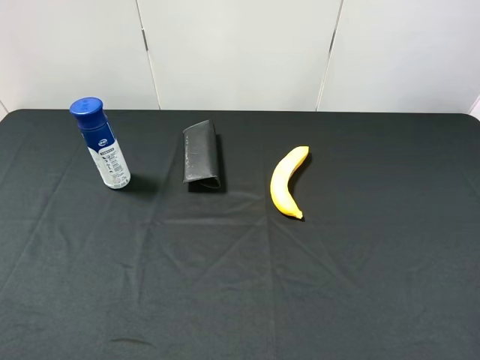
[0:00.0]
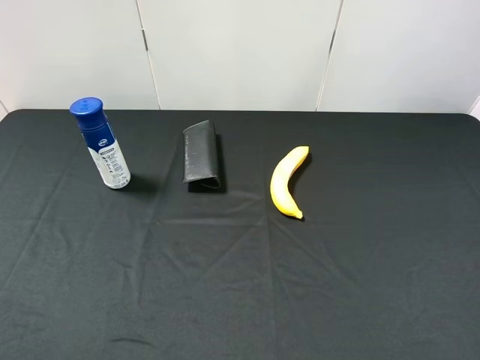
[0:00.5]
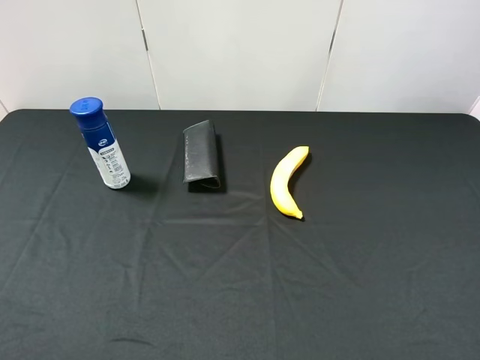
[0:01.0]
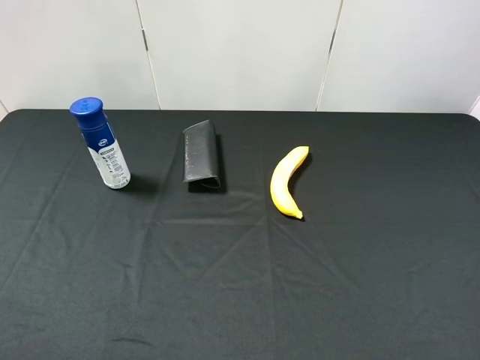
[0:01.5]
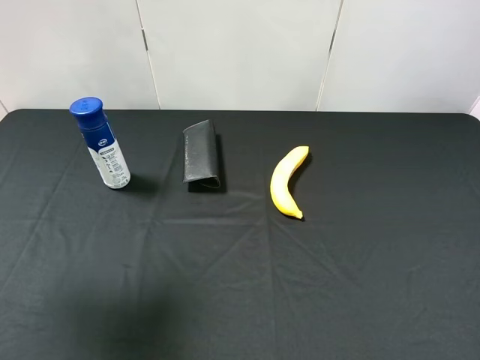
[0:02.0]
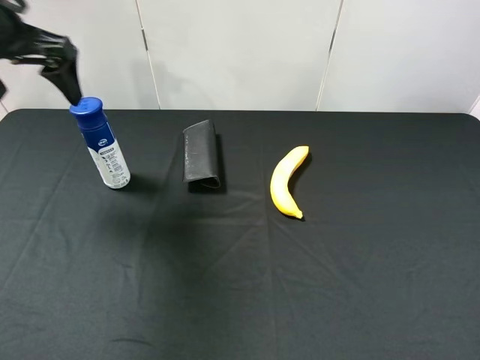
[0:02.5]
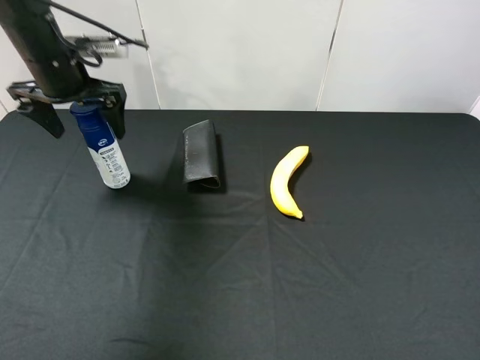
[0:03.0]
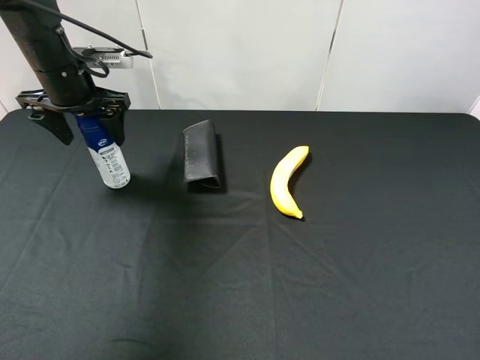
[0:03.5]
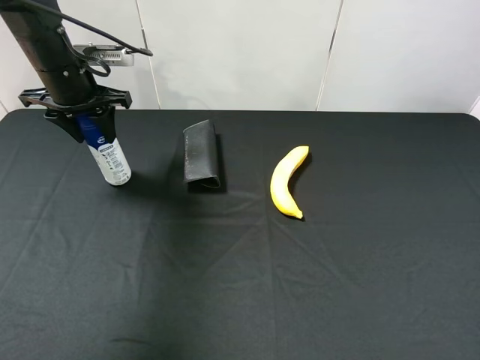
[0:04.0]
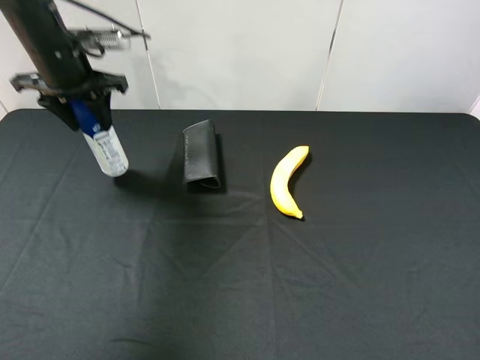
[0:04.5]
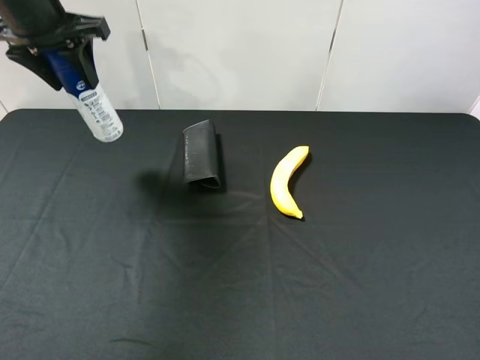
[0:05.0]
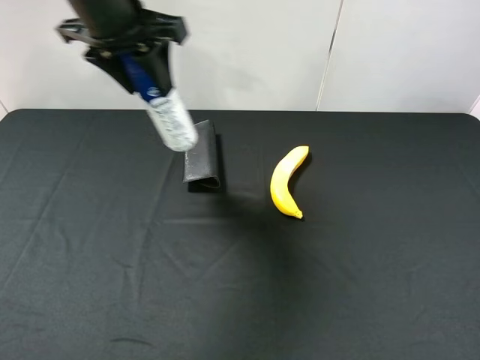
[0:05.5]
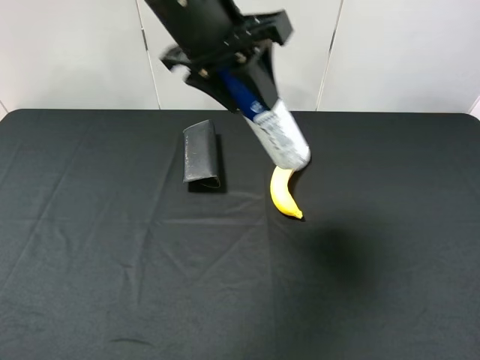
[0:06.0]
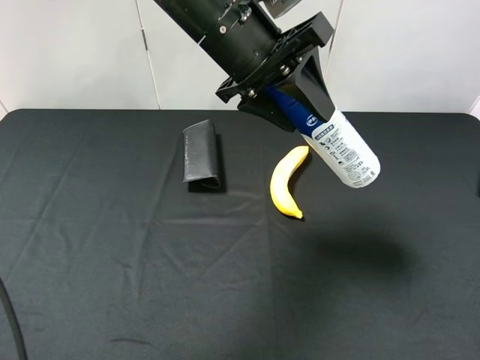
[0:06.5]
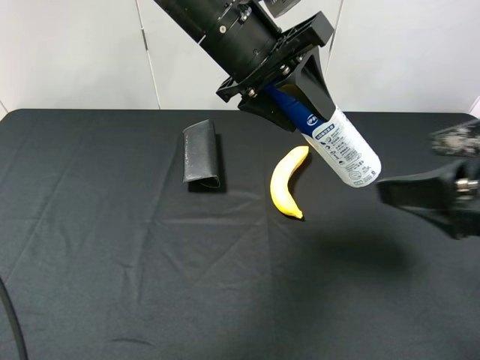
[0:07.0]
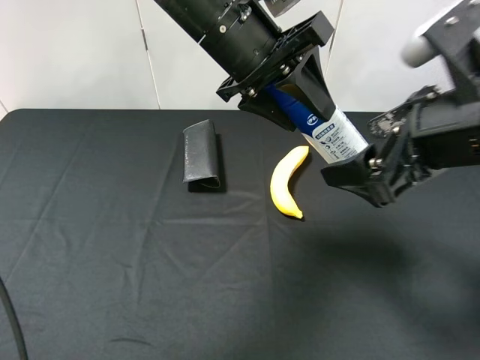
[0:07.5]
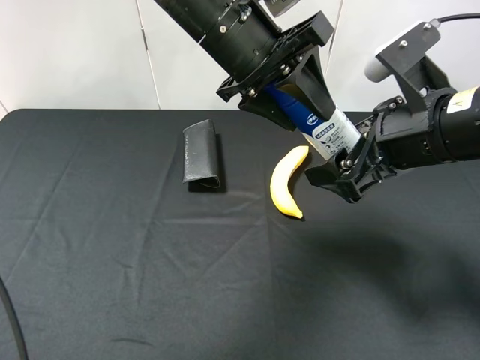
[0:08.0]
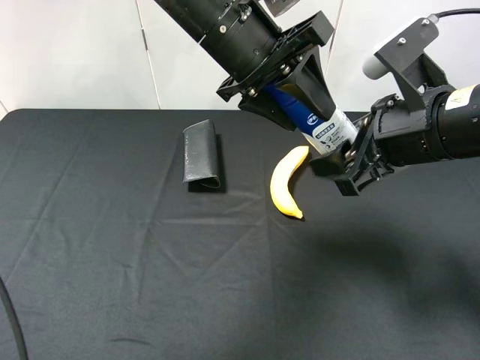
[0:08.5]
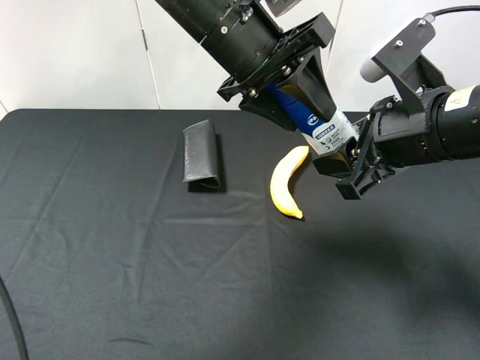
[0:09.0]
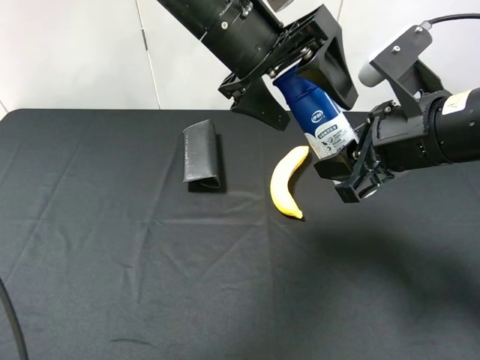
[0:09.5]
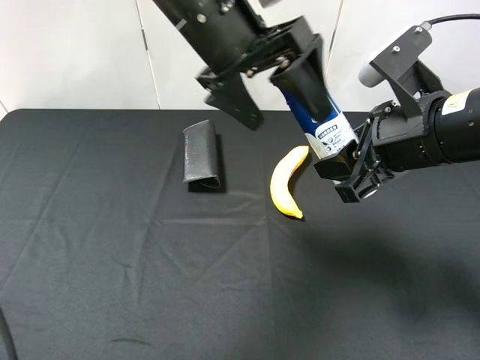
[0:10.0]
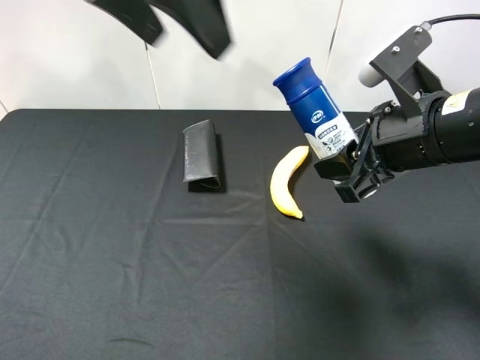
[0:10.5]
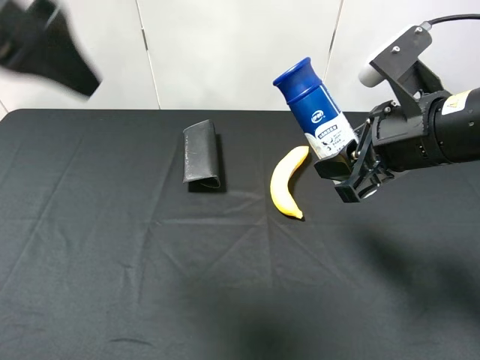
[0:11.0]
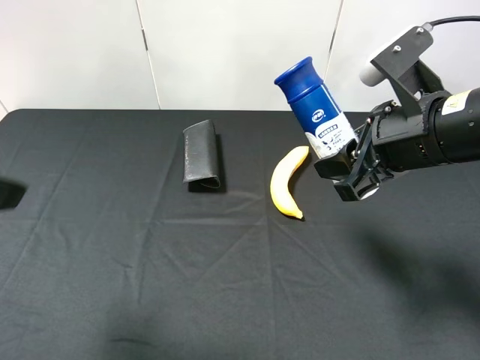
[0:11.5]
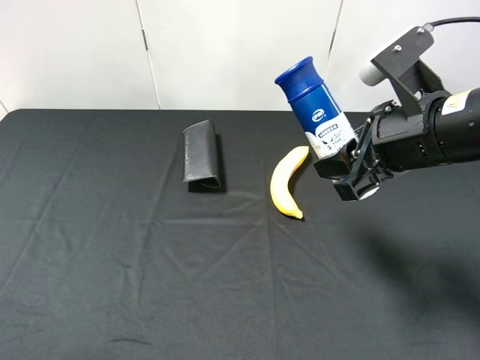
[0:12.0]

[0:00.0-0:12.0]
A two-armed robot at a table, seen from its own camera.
Task of the whole recording: use the left gripper to pick up the item and transfer it from the left gripper to the right gripper.
0:00.0 to 0:02.0: The left gripper moves forward and upward, roughly 20 cm.
0:02.0 to 0:04.0: The left gripper heads forward and downward, covering some 25 cm, and closes.
0:04.0 to 0:06.0: The left gripper heads to the right, upward and backward, covering roughly 25 cm.
0:06.0 to 0:08.0: The right gripper shifts about 25 cm forward and to the left.
0:08.0 to 0:10.0: The left gripper opens; the right gripper closes.
0:10.0 to 0:12.0: The left gripper shifts roughly 40 cm backward and to the left.

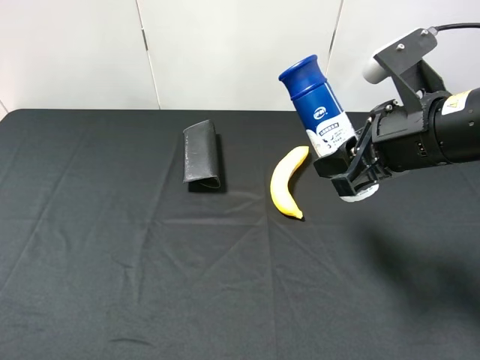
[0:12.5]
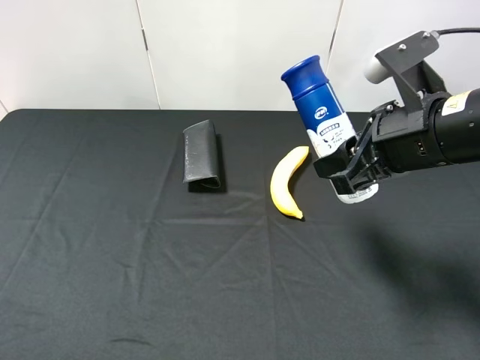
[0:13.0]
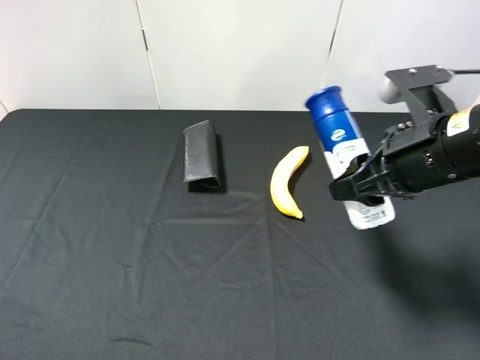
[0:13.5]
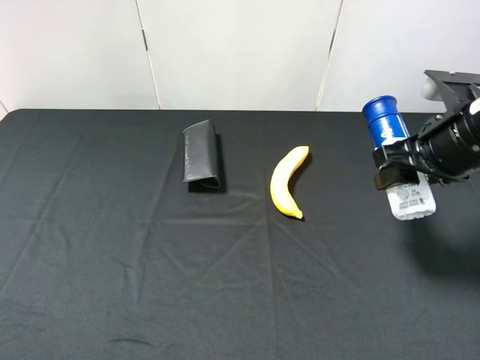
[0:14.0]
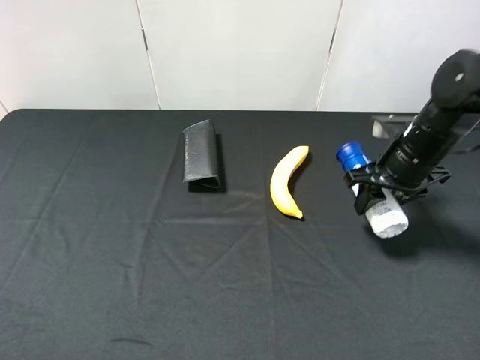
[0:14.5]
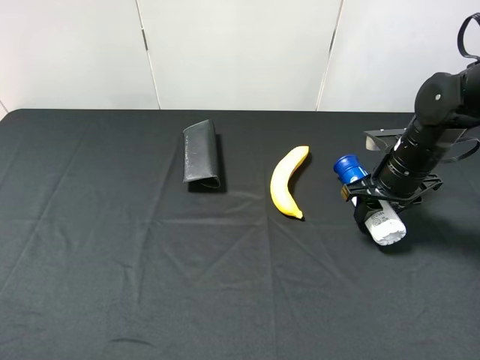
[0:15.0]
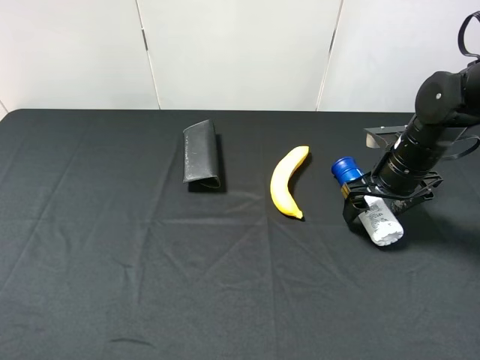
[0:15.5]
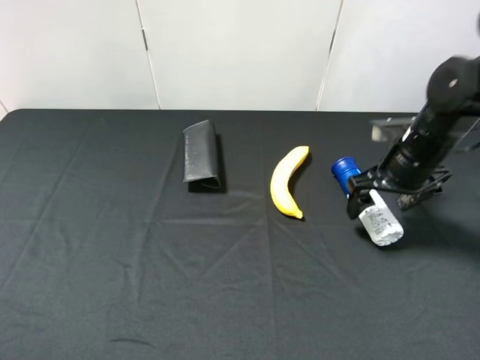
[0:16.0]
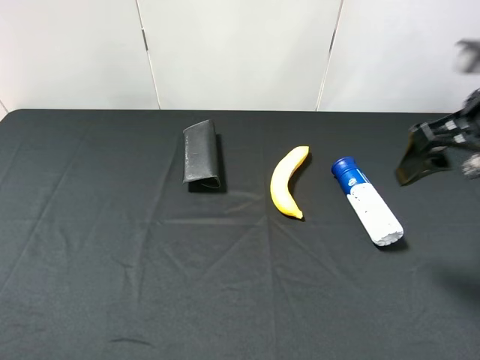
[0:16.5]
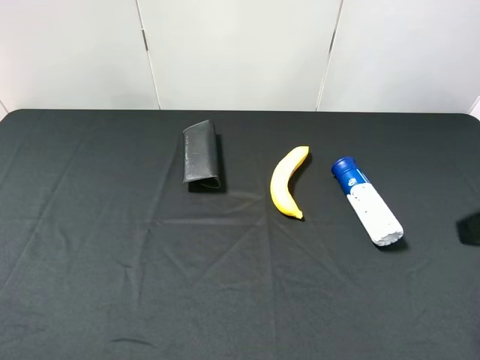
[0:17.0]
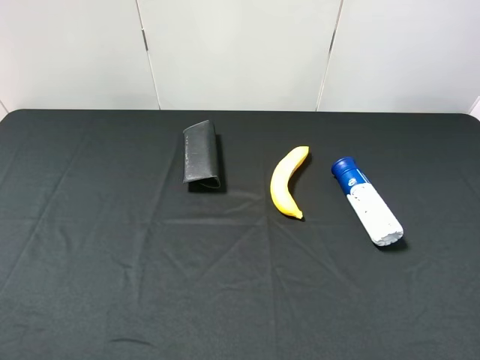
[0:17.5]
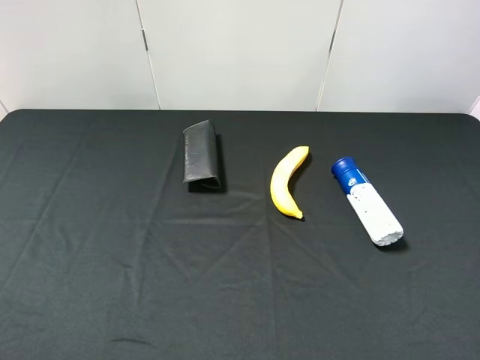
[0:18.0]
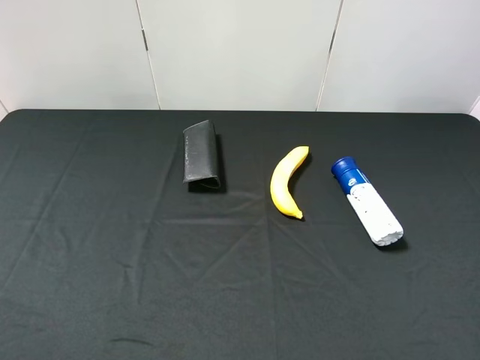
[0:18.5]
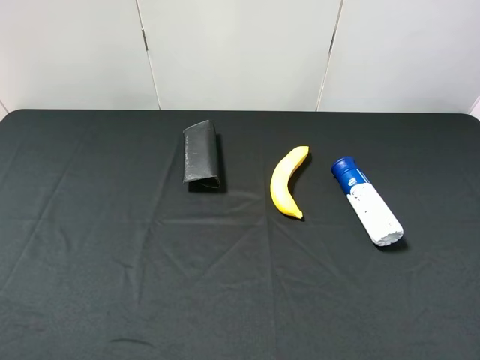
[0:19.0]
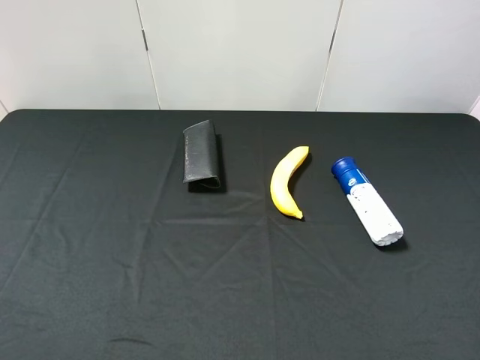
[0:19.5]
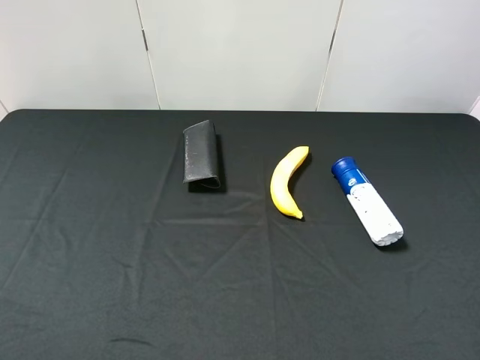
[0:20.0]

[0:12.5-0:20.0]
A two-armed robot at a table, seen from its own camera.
Task of the whole recording: use the left gripper to pick up the item and transfer it from the left gripper to the right gripper.
0:12.5 to 0:14.5: The right gripper heads forward, downward and to the right, covering about 15 cm.
0:14.5 to 0:16.5: The right gripper goes approximately 15 cm upward and backward, and opens its fingers.
0:16.5 to 0:18.0: The right gripper shifts approximately 20 cm backward.
